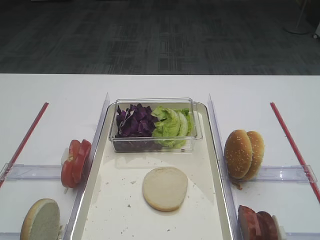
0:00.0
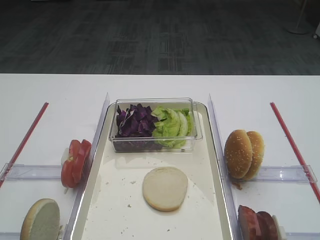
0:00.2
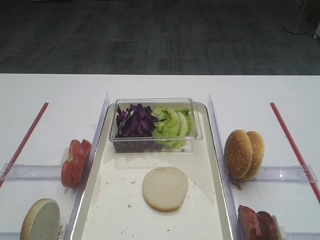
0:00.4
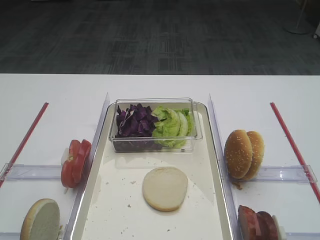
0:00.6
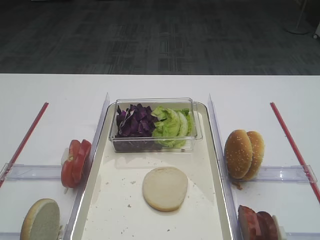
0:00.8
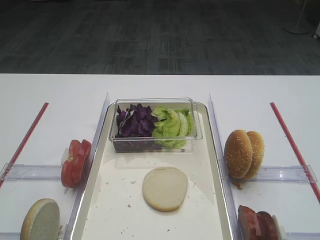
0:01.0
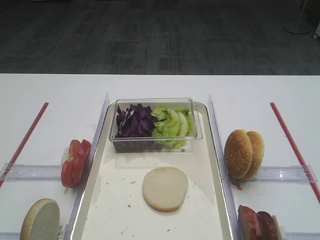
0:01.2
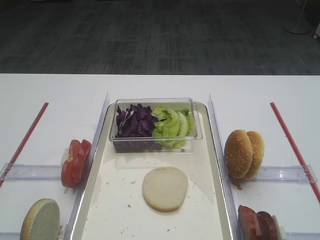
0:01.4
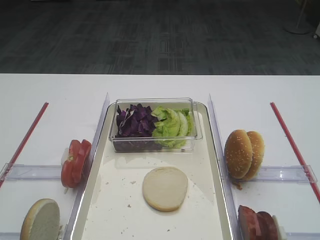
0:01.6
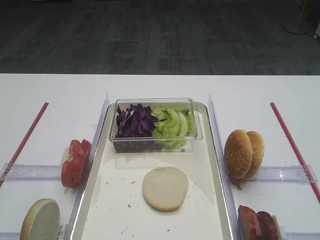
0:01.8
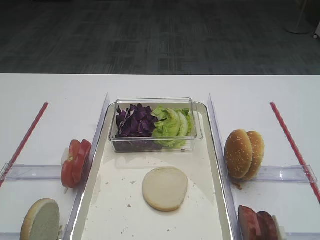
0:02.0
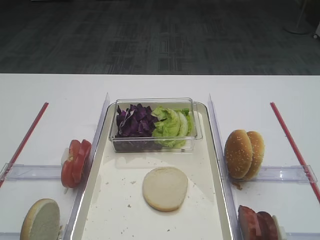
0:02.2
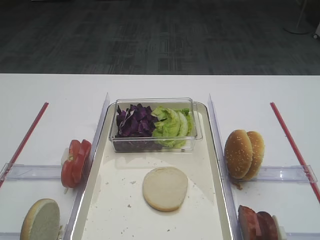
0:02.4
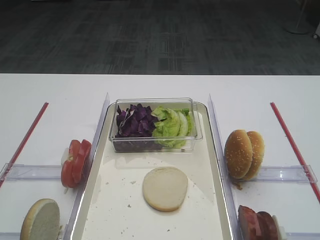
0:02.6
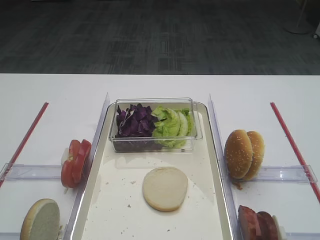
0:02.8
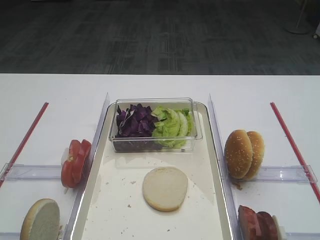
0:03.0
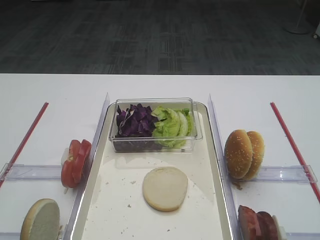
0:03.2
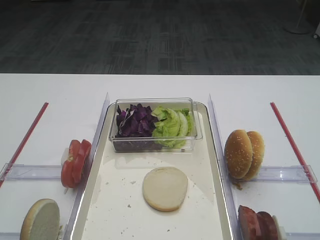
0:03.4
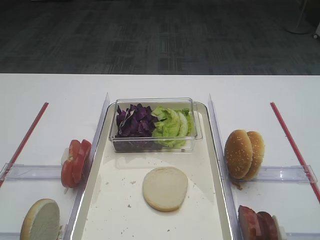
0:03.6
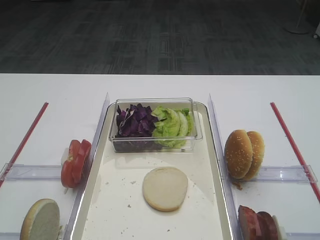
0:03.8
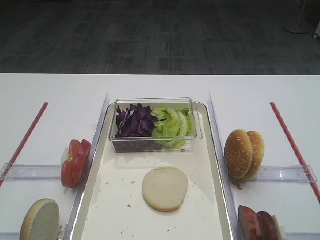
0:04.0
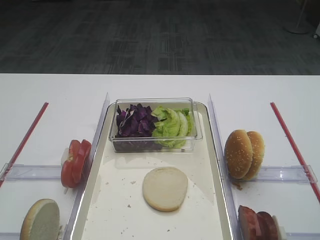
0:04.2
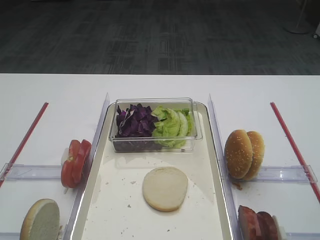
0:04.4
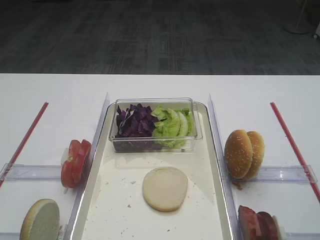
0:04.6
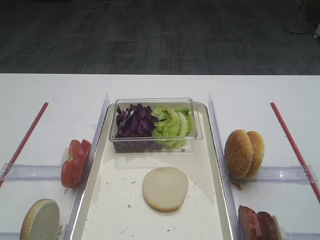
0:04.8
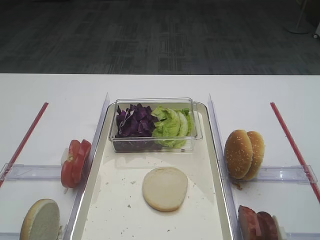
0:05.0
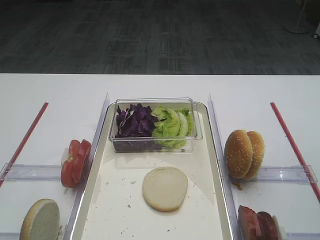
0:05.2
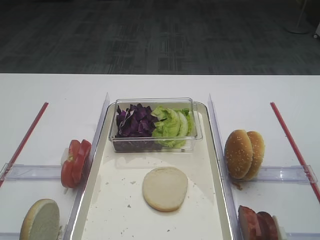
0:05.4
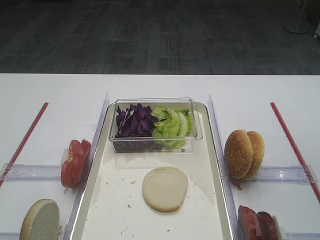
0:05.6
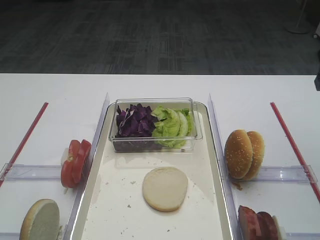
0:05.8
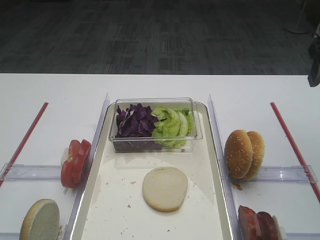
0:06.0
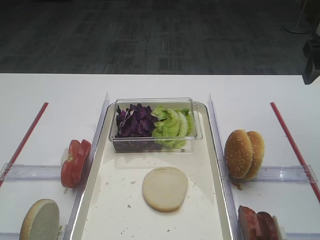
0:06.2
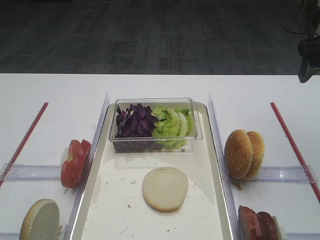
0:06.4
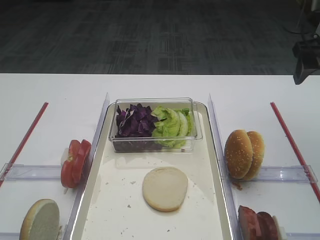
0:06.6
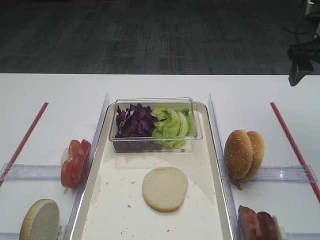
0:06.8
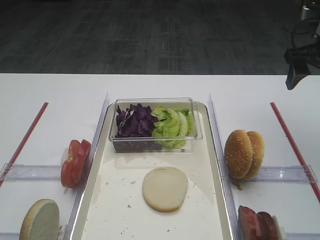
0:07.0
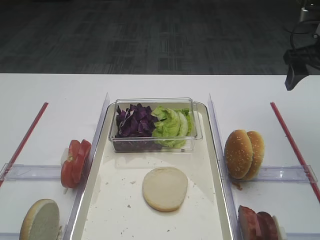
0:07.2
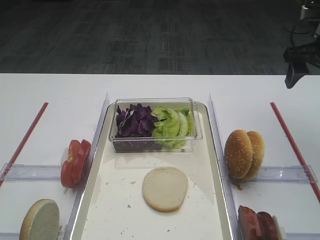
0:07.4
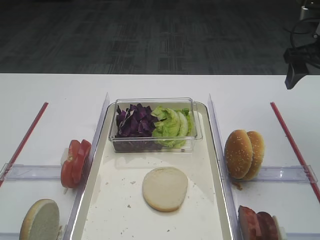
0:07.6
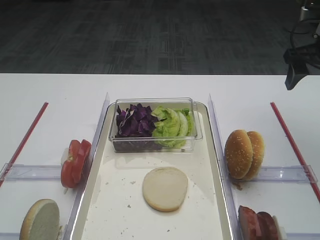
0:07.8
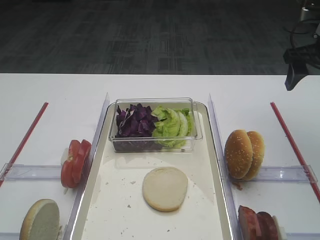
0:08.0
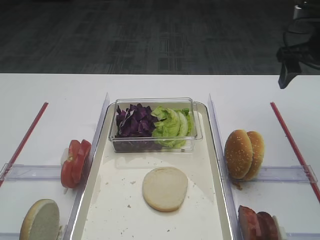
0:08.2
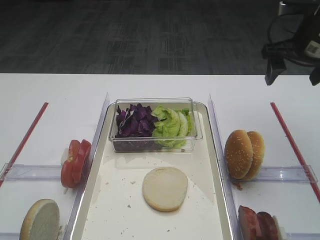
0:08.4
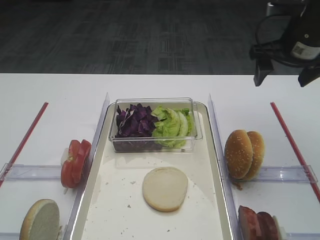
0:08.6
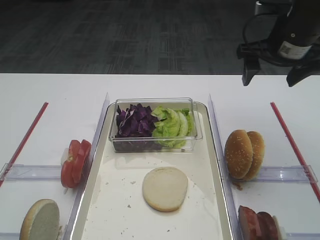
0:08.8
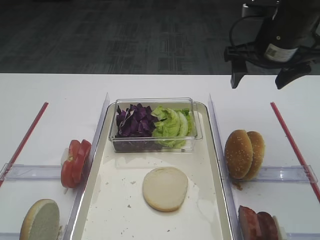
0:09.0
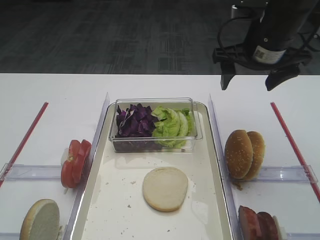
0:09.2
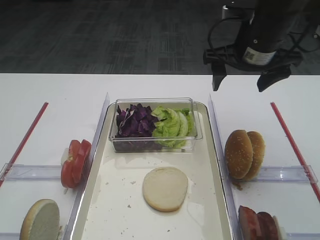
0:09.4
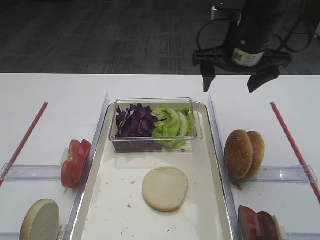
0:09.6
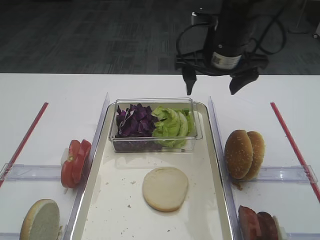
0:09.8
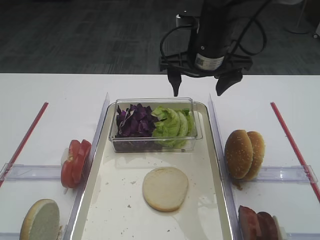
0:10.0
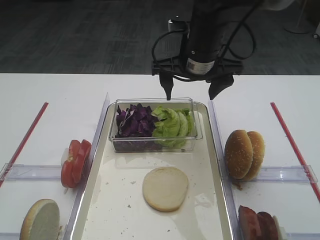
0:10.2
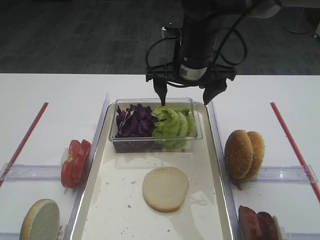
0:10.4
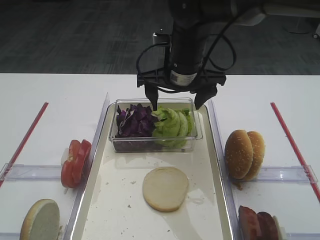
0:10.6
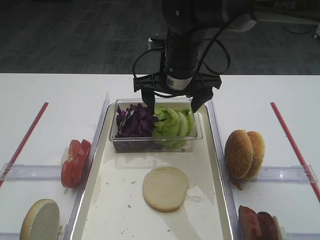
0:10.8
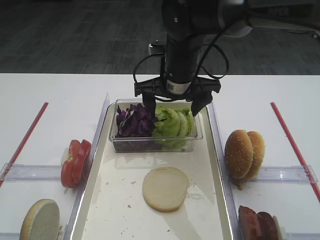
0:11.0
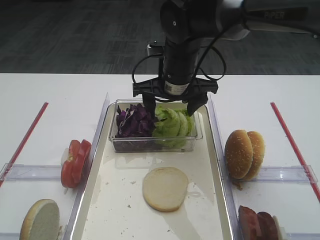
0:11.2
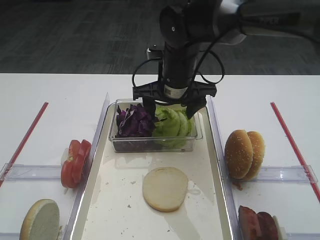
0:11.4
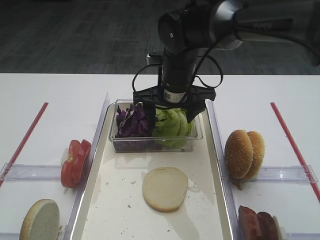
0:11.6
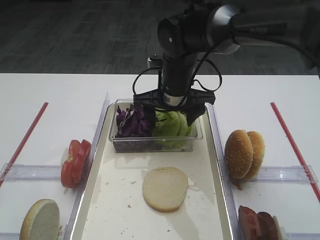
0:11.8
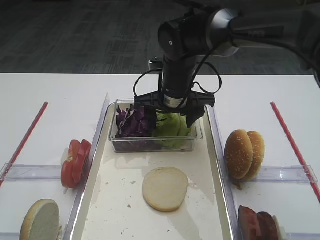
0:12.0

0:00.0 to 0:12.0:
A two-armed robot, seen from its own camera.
0:01.6 to 0:03.0: Both grippers stay about where they are.
0:06.0 to 0:07.6: The right gripper goes approximately 5 cm forward.
0:07.6 to 0:09.0: The right gripper is displaced to the left by about 10 cm.
0:09.0 to 0:10.4: The right gripper moves to the left, some 15 cm.
0:10.4 to 0:12.0: The right gripper travels downward by about 5 cm.

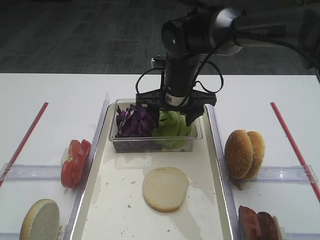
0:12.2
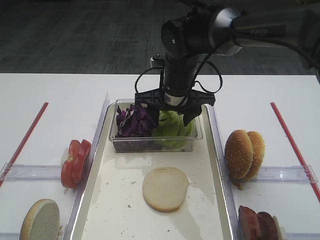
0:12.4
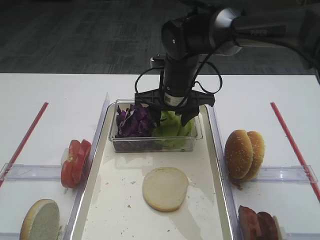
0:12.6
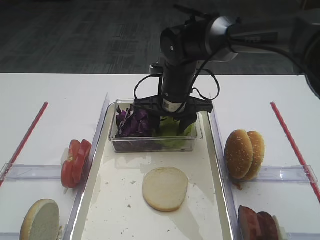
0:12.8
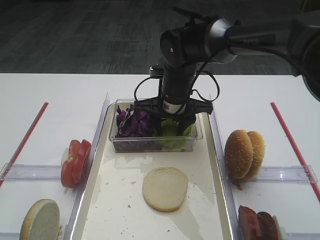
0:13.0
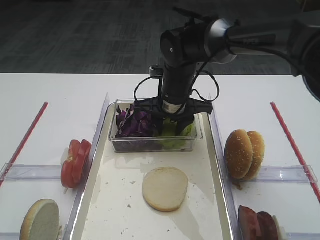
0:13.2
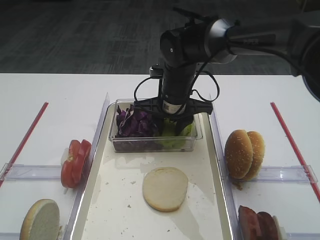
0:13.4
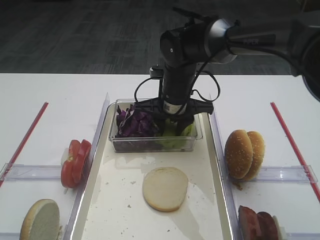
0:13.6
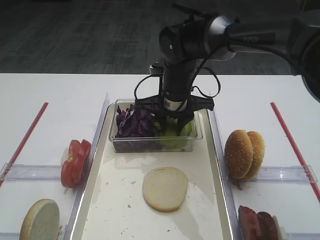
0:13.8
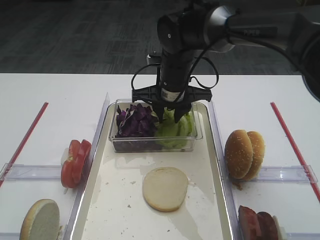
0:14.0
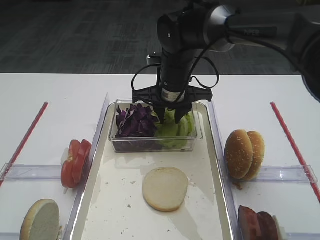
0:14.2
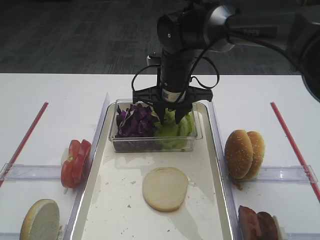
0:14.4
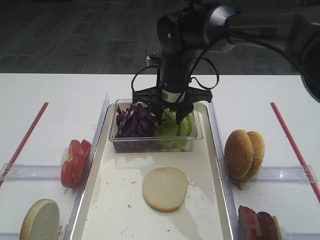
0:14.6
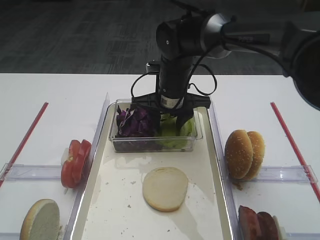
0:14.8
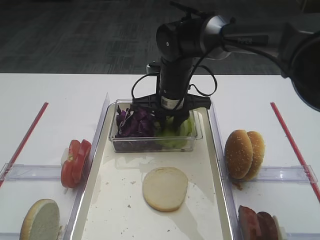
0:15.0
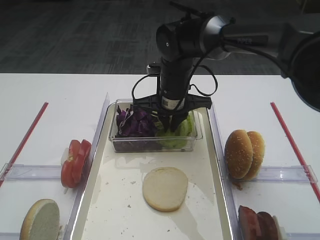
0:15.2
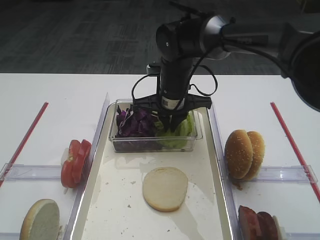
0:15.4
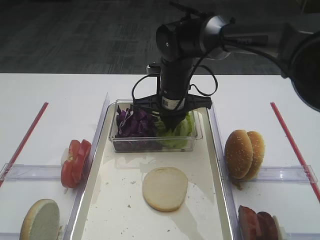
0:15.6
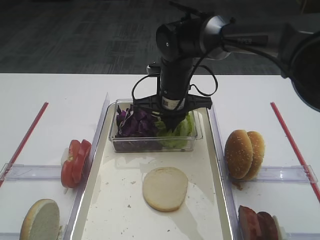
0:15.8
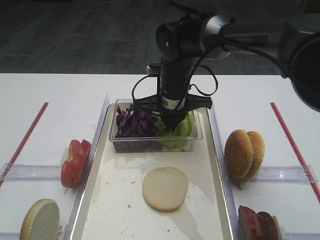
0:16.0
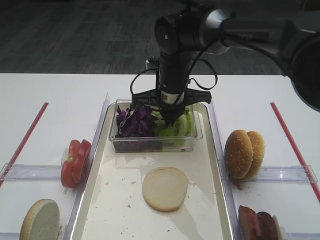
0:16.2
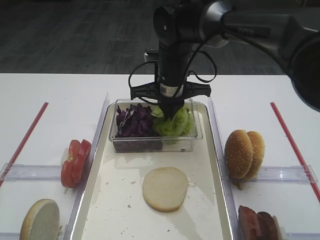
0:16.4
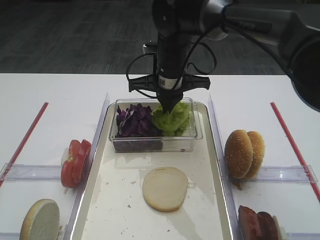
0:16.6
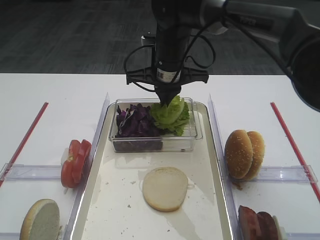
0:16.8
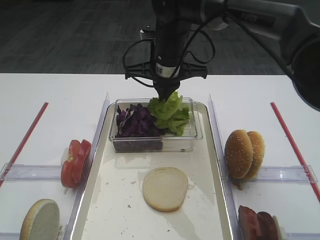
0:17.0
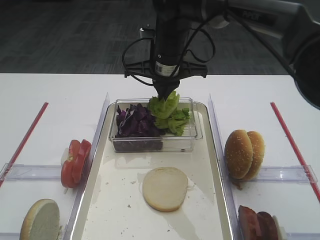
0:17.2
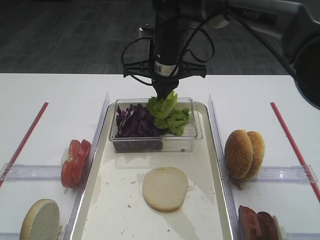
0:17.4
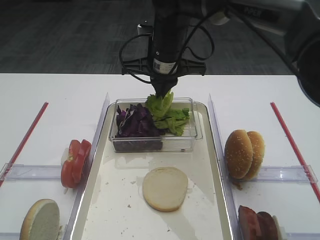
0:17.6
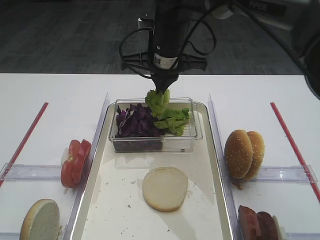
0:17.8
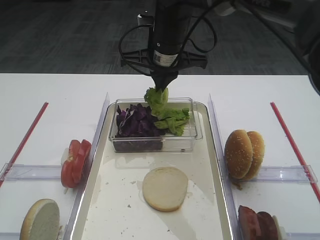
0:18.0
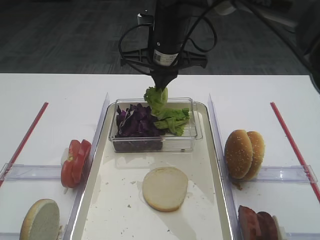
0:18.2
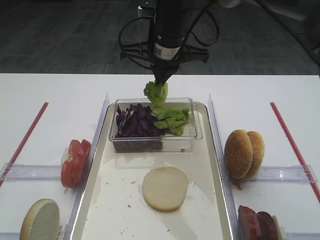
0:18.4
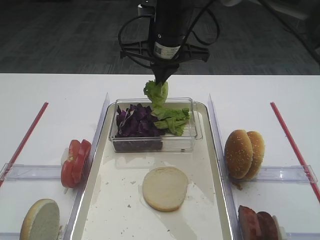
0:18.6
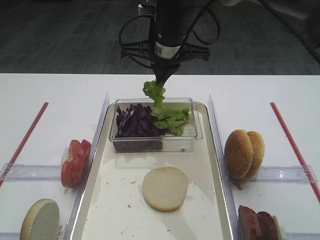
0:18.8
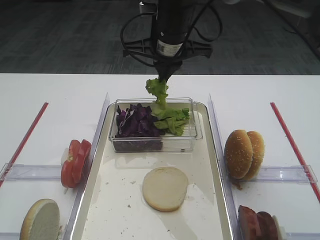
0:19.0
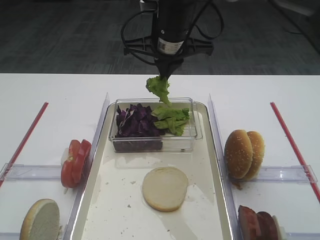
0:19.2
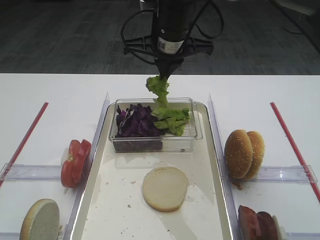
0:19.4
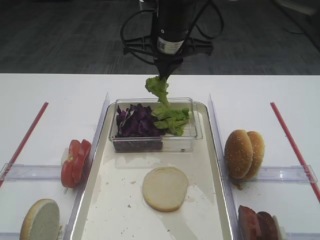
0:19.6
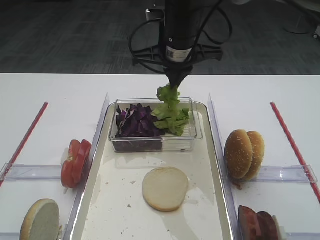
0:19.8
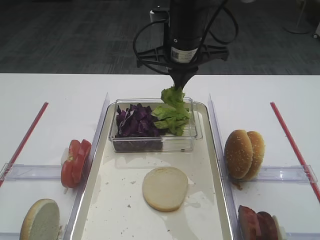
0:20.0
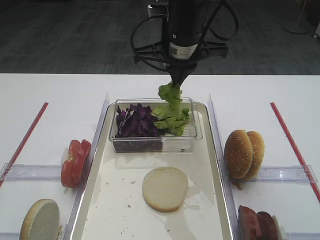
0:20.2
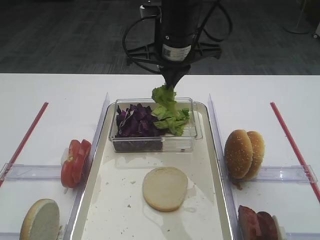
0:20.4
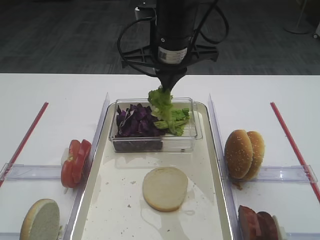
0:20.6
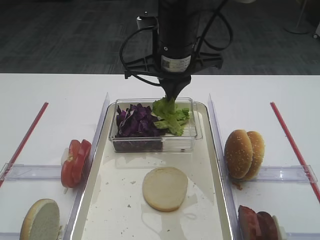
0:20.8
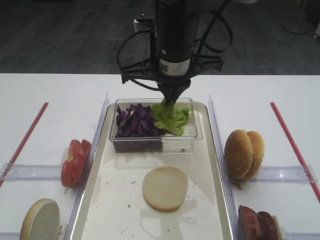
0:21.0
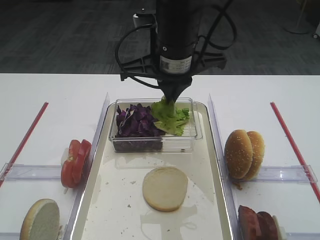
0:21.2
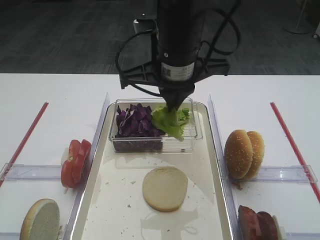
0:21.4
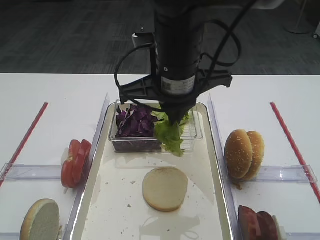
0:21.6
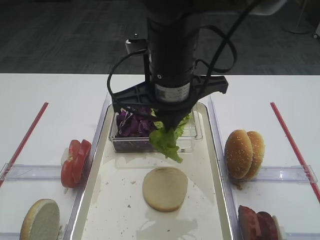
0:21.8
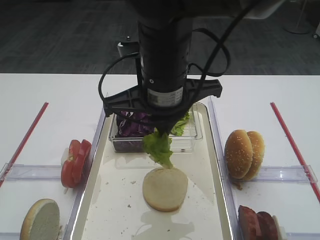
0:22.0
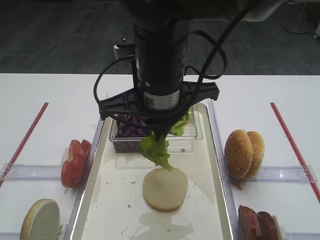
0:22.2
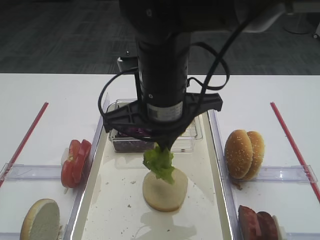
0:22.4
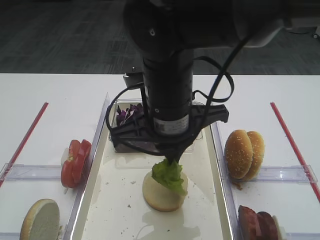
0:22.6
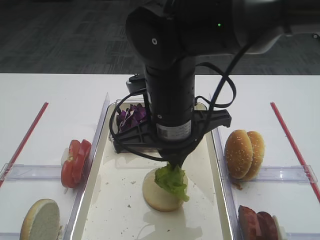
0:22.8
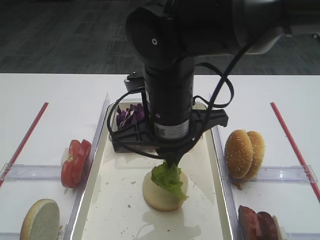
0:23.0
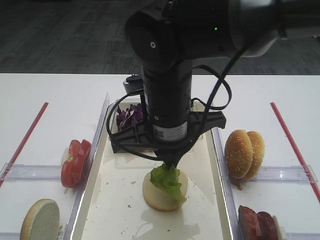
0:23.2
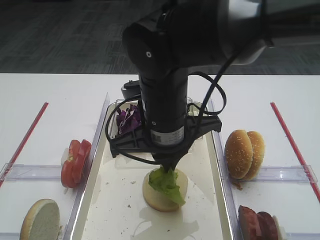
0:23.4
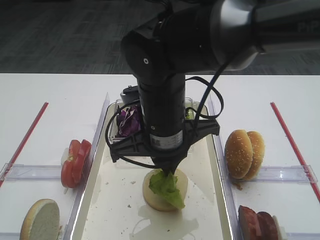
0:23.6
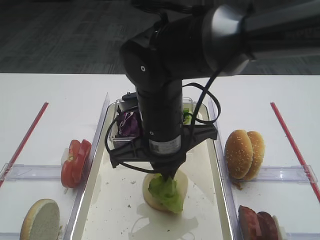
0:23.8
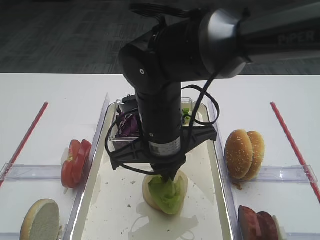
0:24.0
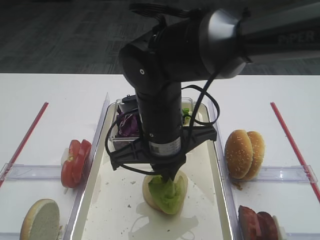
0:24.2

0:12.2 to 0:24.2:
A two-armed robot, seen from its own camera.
Step, 0:12.2 to 0:19.2: Pick up the lettuce leaf with the right gripper.
0:12.2 to 0:13.8: The right gripper closes up.
0:13.8 to 0:16.6: The grippers stay close to where they were, moving slightly.
0:16.6 to 0:18.2: The right gripper heads upward, covering about 5 cm.
0:18.2 to 0:19.8: There are only small adjustments of the grippers.
0:19.8 to 0:21.2: The right gripper goes about 5 cm backward.
0:21.2 to 0:22.6: The right gripper heads backward, covering about 5 cm.
0:22.6 to 0:24.2: The grippers stay close to where they were, moving slightly.
